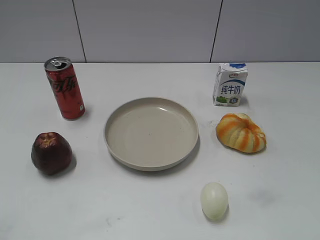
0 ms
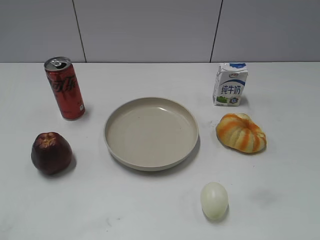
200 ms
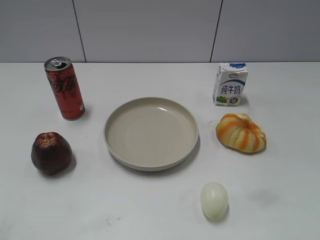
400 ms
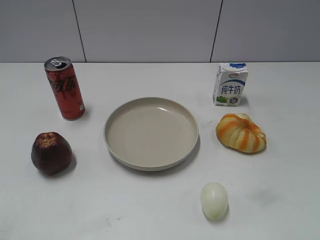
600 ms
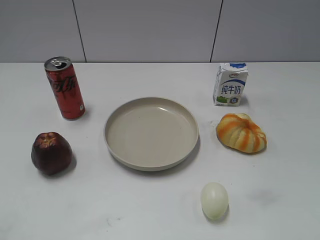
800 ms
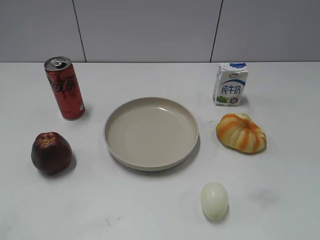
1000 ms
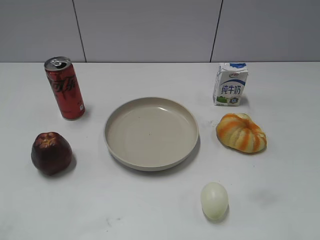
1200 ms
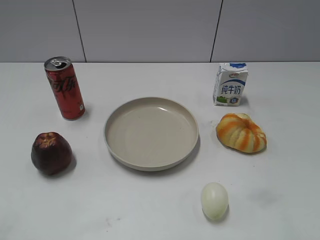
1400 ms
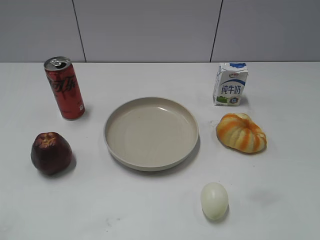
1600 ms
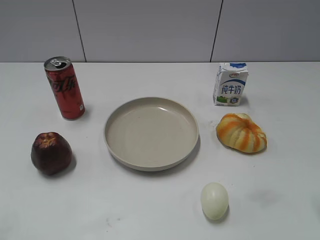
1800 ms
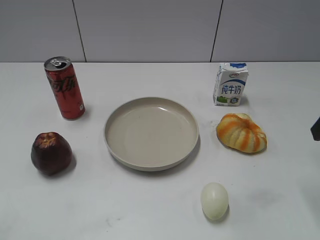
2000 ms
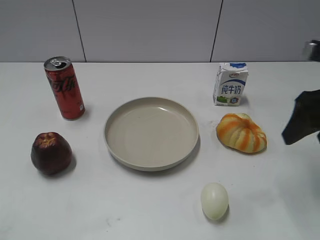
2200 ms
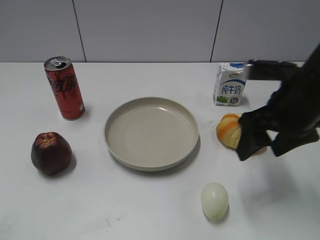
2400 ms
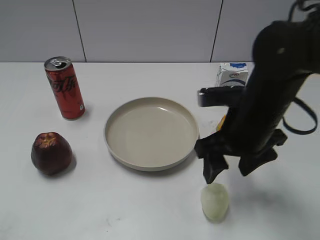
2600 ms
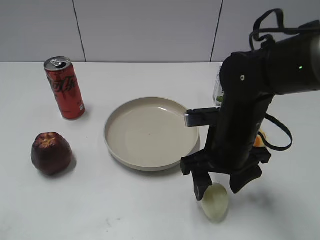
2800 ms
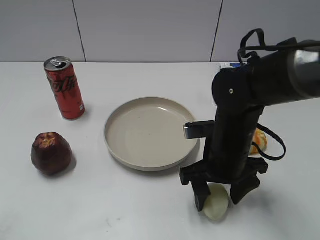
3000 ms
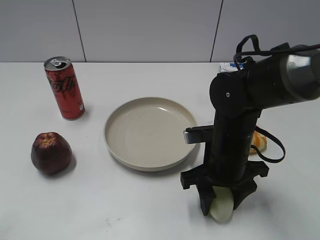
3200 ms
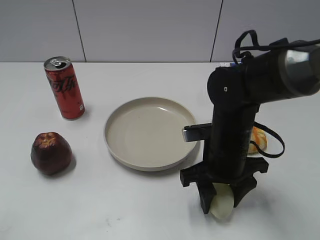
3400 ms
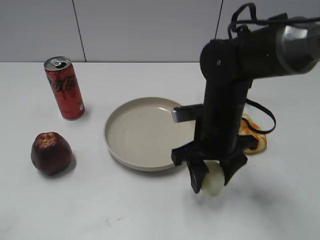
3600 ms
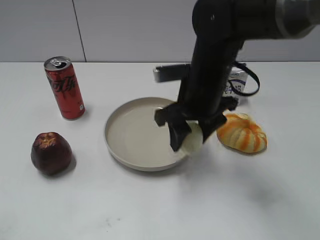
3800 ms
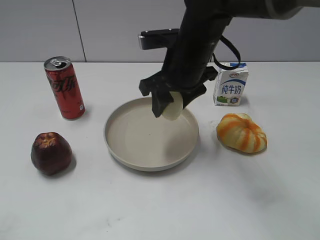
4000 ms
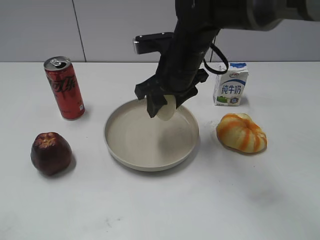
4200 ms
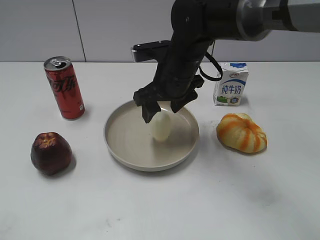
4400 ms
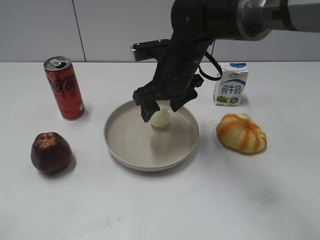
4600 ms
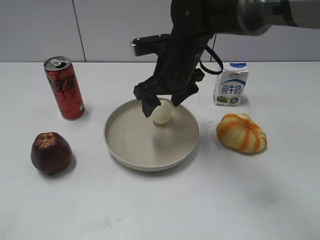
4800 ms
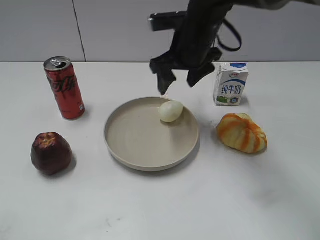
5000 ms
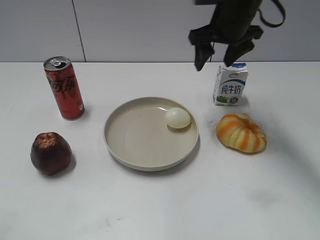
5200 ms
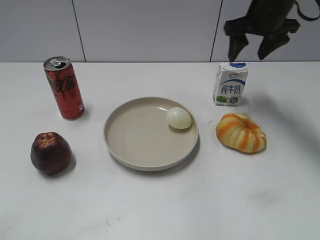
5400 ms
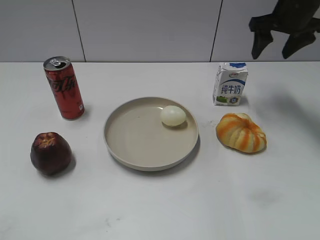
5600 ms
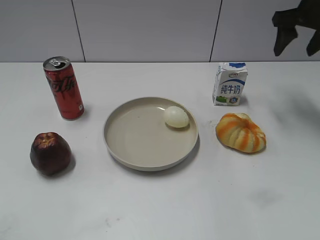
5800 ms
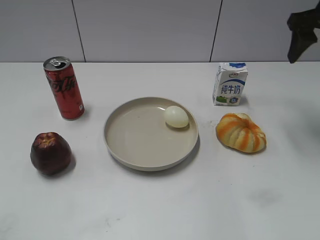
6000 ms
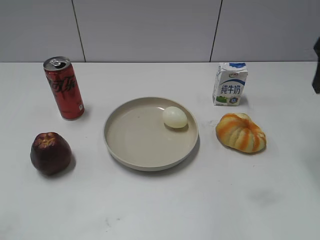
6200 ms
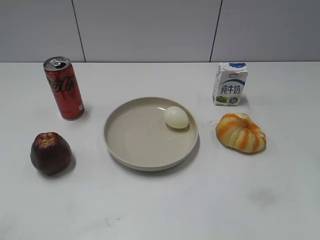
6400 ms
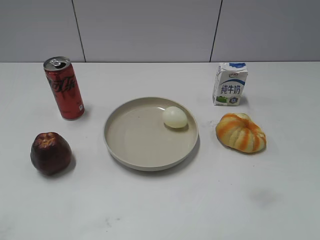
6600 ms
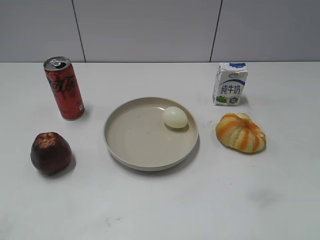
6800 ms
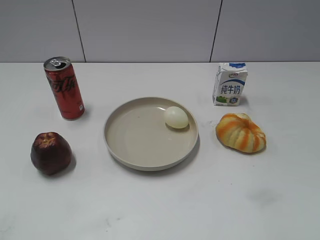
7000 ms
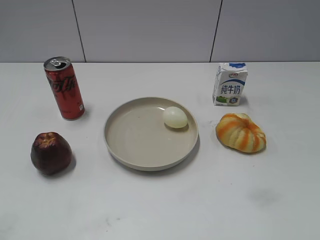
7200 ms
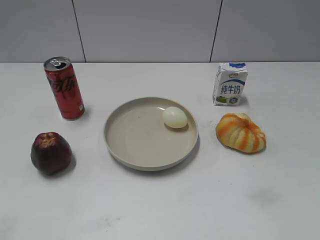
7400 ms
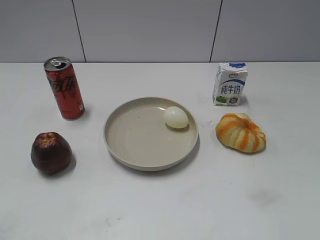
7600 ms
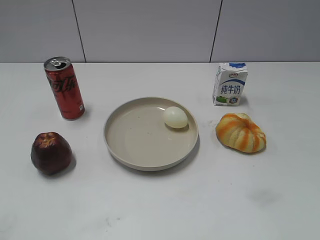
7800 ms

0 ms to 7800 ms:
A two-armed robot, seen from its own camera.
Step, 800 ms to 3200 ms: Grasp the egg with right gripper.
Step, 3400 ms to 4800 ms: Place the egg on the plate with right gripper.
1600 ms to 3200 ms: The right gripper heads to the left, downward and forward, covering some 25 cm, and closes up.
3200 ms to 4600 ms: The right gripper is displaced forward, to the left and upward by roughly 15 cm, and opens its fingers.
4600 ms to 6200 ms: The right gripper goes some 30 cm to the right and upward.

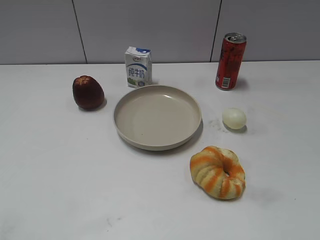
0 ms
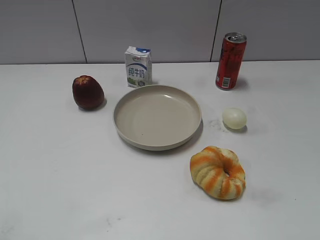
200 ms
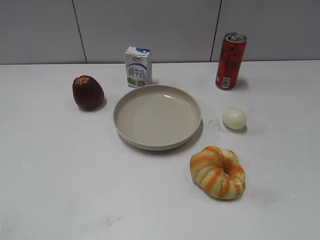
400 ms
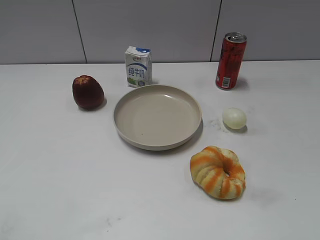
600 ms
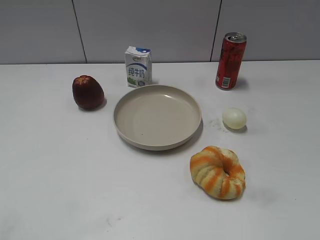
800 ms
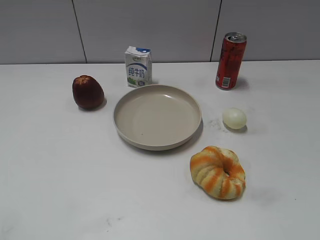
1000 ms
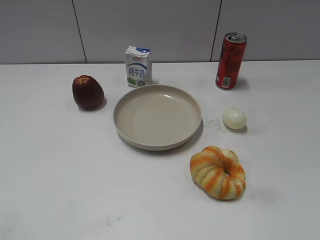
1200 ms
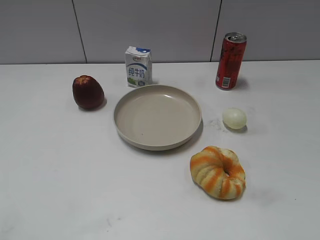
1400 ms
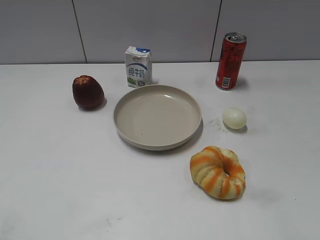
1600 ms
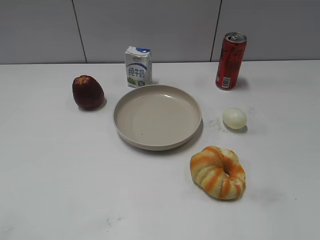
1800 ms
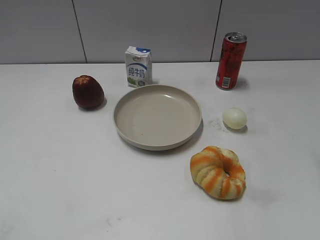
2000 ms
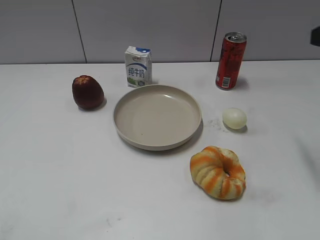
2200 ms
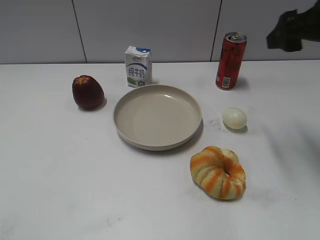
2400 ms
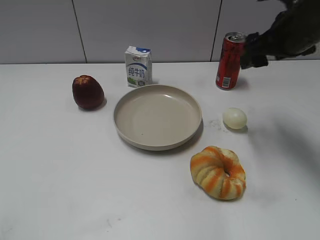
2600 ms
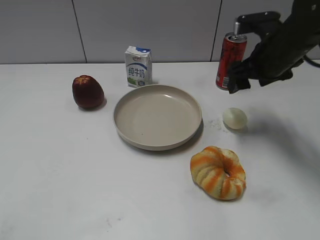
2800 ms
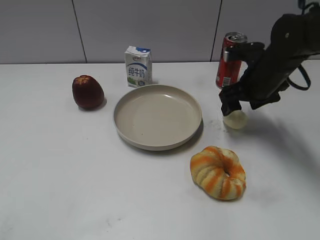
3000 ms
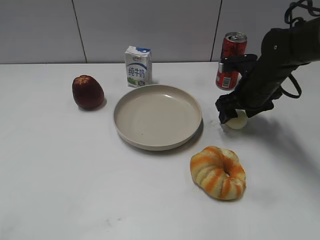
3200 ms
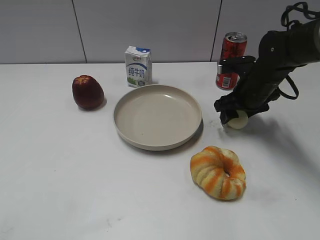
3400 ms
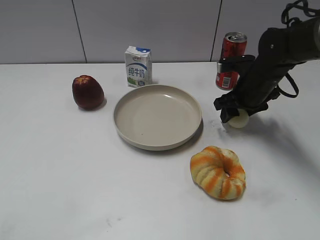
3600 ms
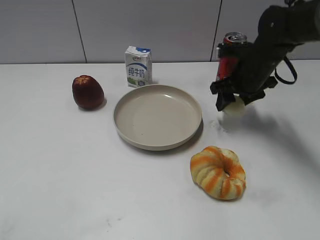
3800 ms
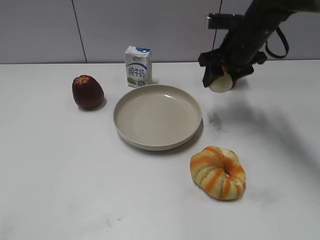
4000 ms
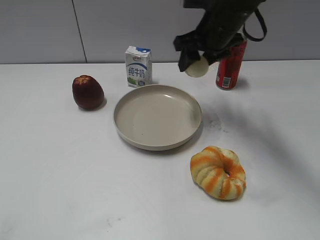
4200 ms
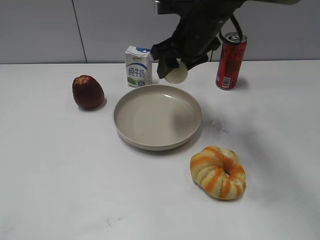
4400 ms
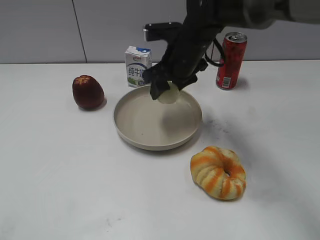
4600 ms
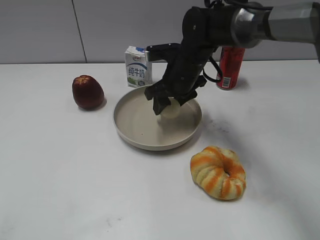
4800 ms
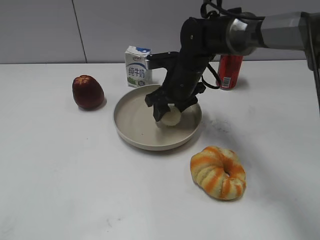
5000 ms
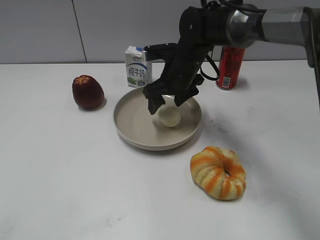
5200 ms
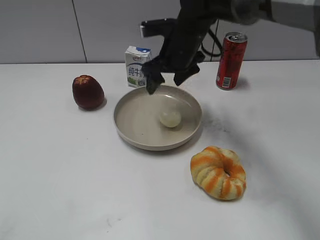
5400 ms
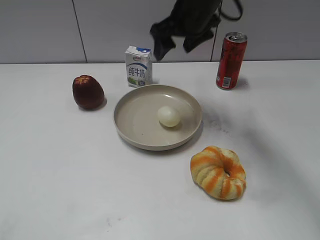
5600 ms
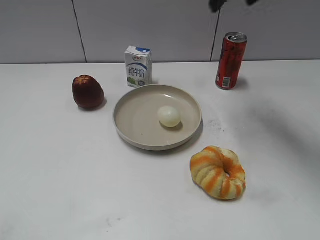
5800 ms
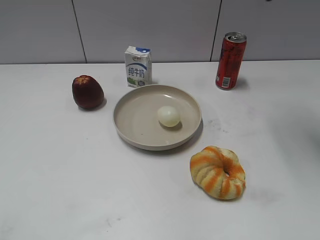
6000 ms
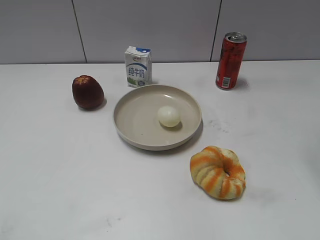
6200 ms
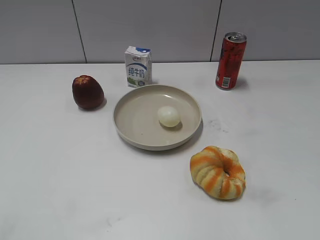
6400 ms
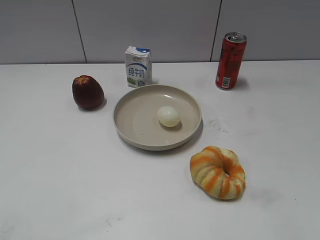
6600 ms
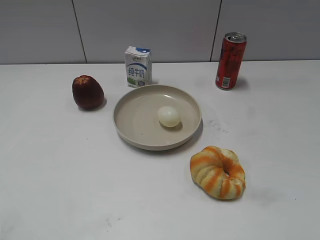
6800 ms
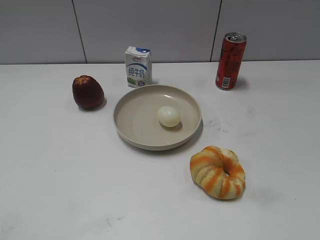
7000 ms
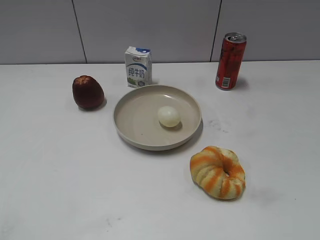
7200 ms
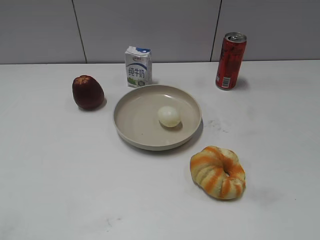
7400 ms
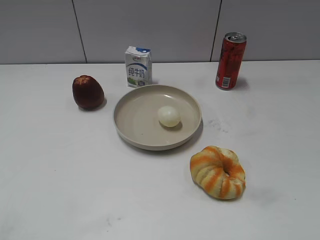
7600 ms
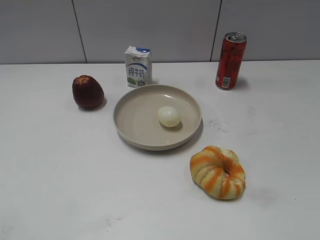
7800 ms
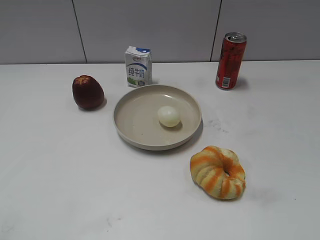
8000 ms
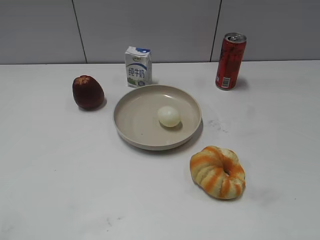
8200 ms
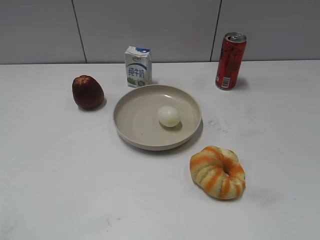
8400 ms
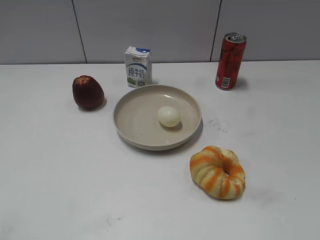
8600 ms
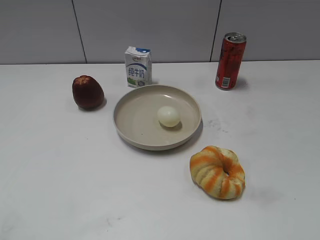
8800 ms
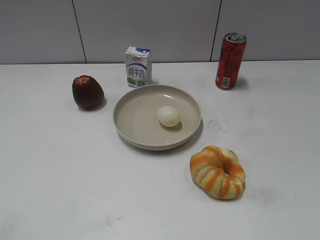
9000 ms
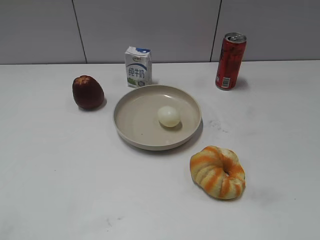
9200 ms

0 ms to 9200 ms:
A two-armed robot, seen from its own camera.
Step, 1400 ms to 3400 ms: Grasp the egg with right gripper.
Step, 3600 ms to 5200 ms: Place the egg on the plate with right gripper.
1600 ms to 3000 ms: The right gripper goes some 35 cm forward and downward.
3000 ms to 4600 ms: The right gripper goes about 15 cm to the left, and closes.
4600 ms to 6200 ms: The right gripper moves upward, to the right and backward, approximately 30 cm, and opens its fingers.

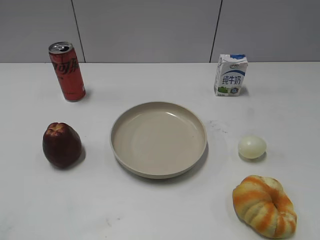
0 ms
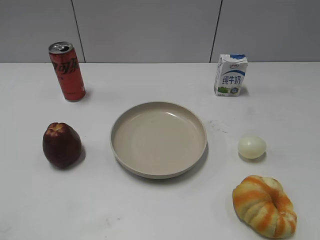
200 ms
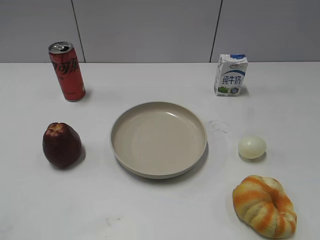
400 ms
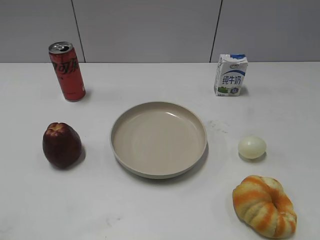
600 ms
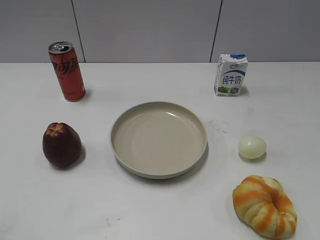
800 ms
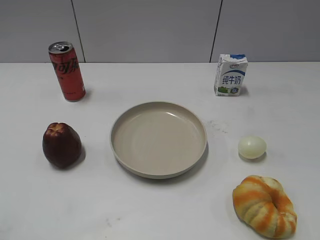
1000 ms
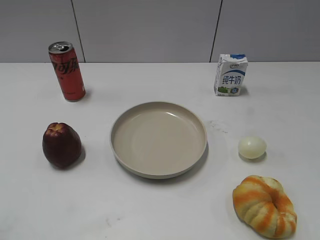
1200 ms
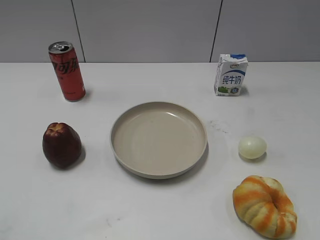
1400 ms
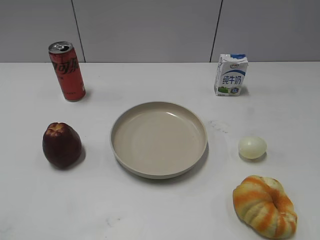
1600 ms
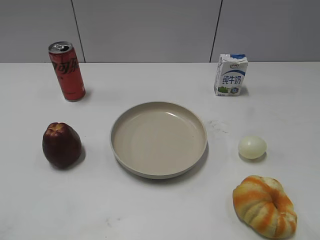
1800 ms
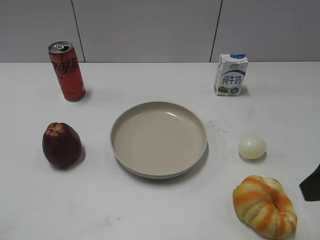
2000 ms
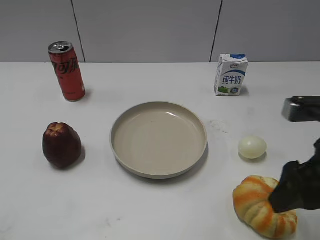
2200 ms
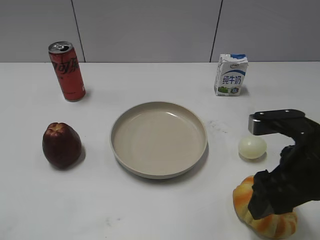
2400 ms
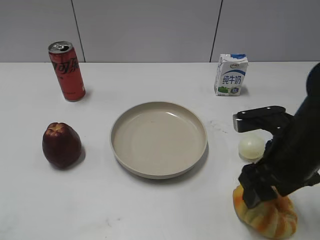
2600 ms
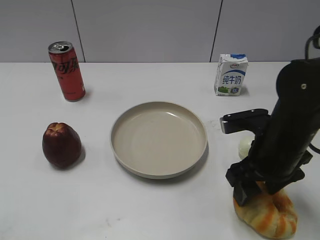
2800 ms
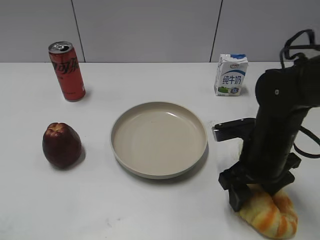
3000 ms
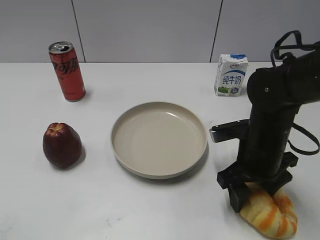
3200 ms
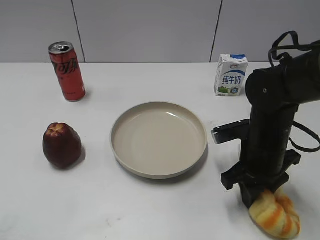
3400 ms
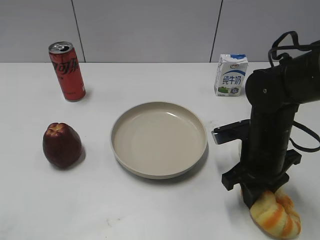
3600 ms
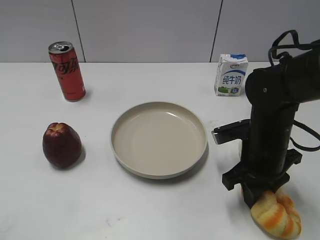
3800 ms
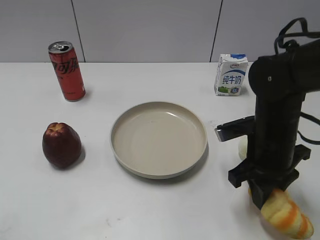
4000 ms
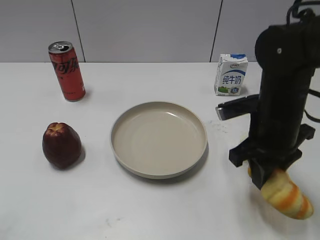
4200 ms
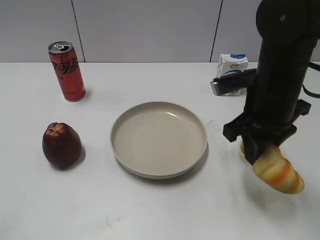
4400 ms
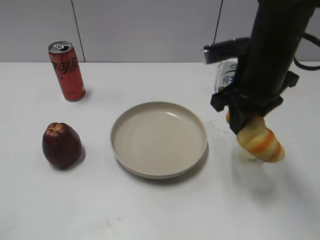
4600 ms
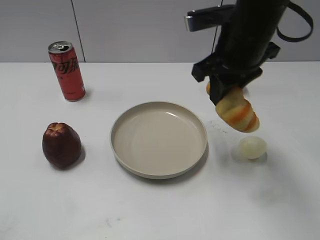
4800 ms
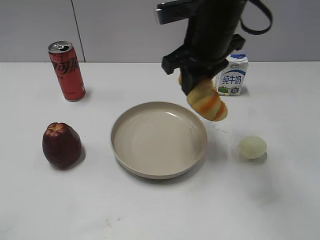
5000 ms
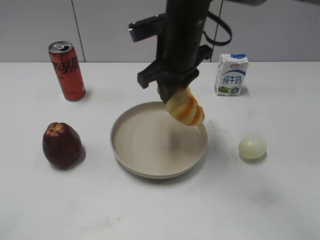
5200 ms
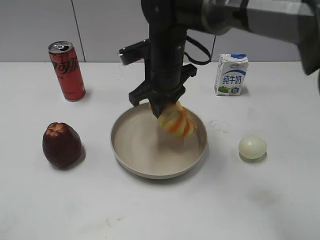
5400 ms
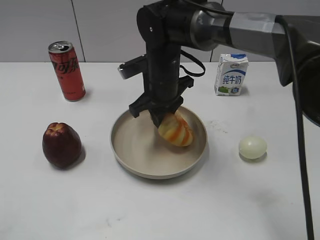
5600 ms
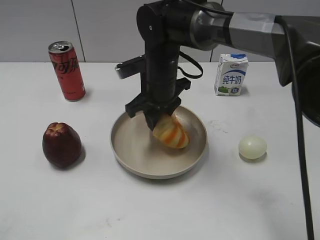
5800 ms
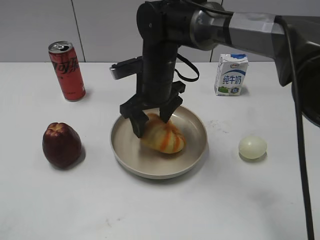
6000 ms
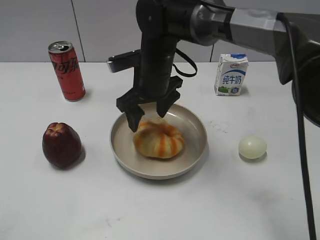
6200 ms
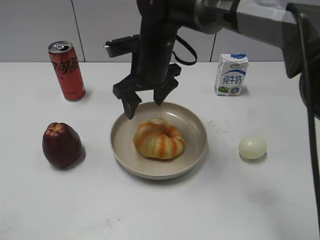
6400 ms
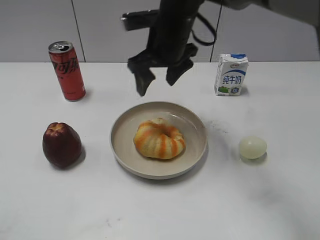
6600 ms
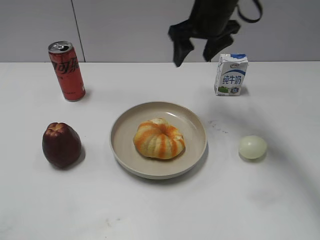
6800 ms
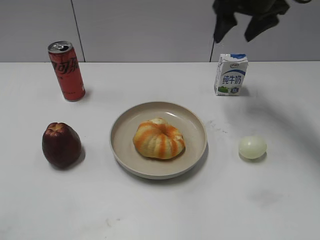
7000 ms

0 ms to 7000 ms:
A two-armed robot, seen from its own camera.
Step, 1000 ms to 3600 ms: Grasp the round bread with right gripper.
Step, 3800 ms to 6200 ms: Place the round bread on the plate with right gripper.
1400 ms to 2800 ms: The right gripper moves forward, downward and to the left, roughly 25 cm.
2800 ms to 4200 ms: The right gripper closes up.
4200 ms to 5600 ms: The right gripper moves to the left and forward, roughly 20 cm.
5600 ms to 7000 ms: The right gripper goes about 25 cm to the right, upward and forward, and opens its fingers.
